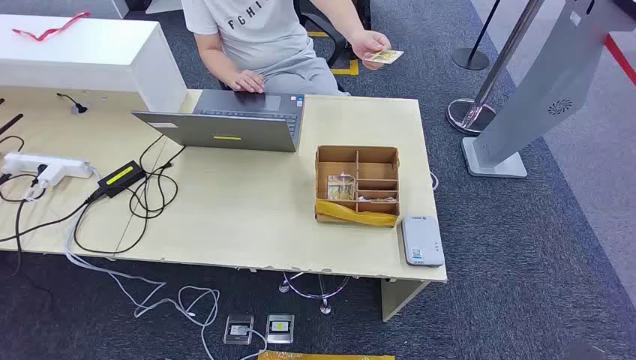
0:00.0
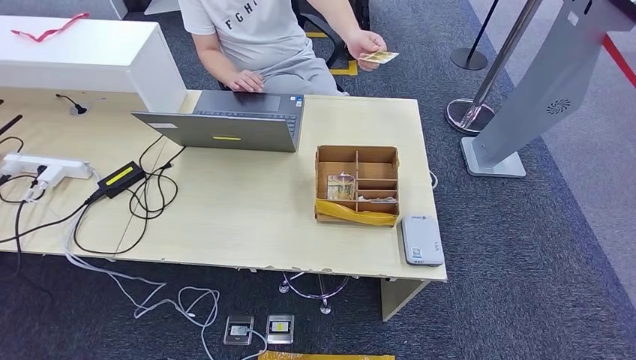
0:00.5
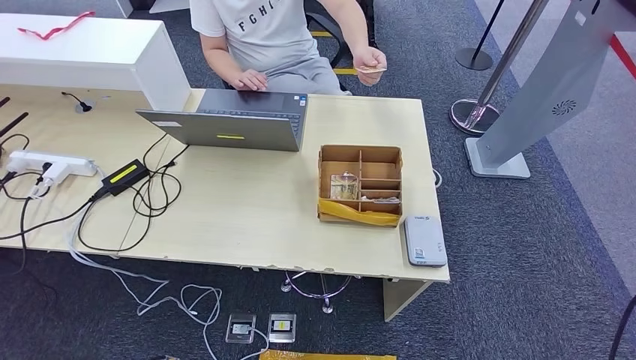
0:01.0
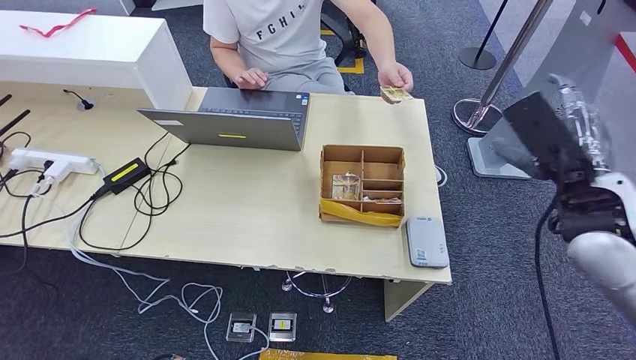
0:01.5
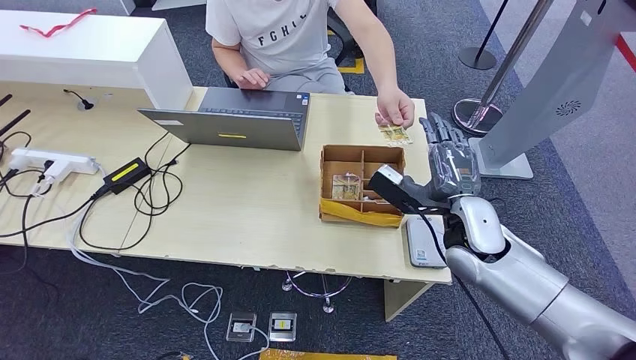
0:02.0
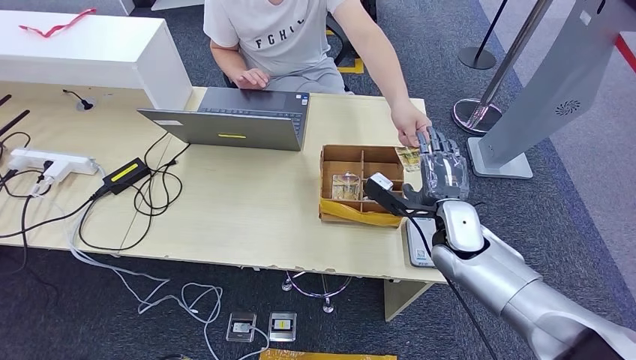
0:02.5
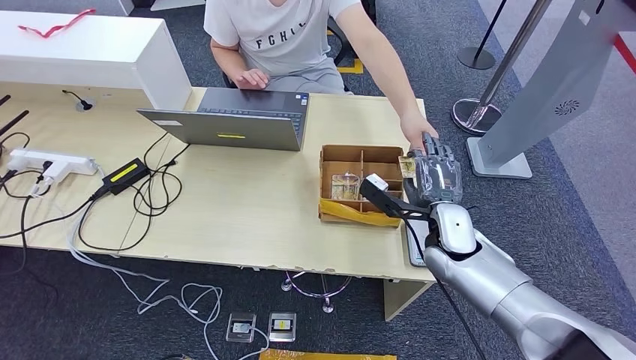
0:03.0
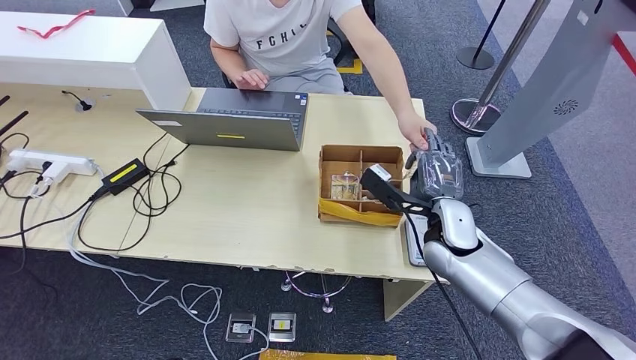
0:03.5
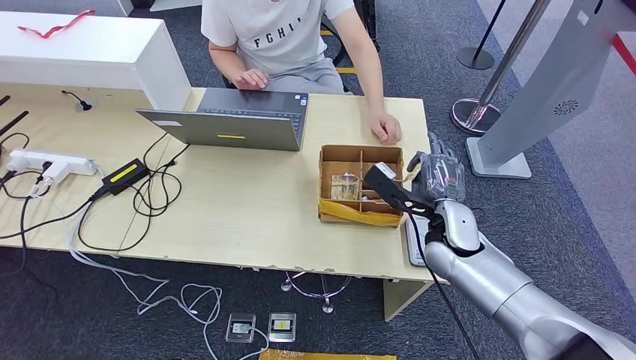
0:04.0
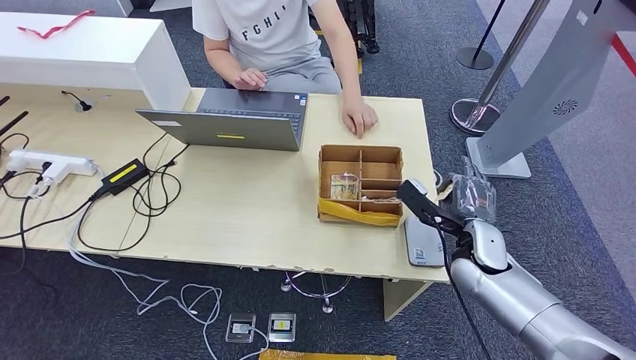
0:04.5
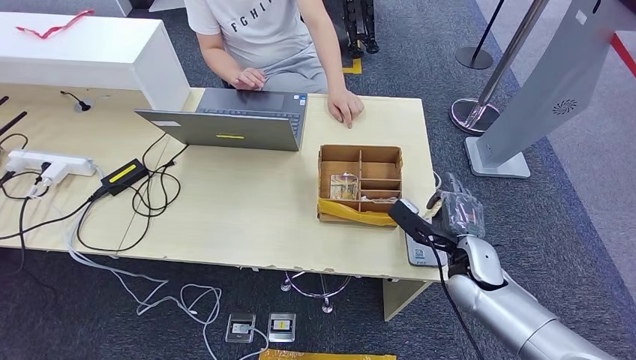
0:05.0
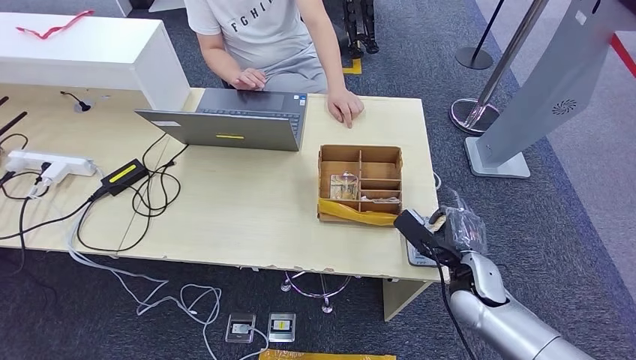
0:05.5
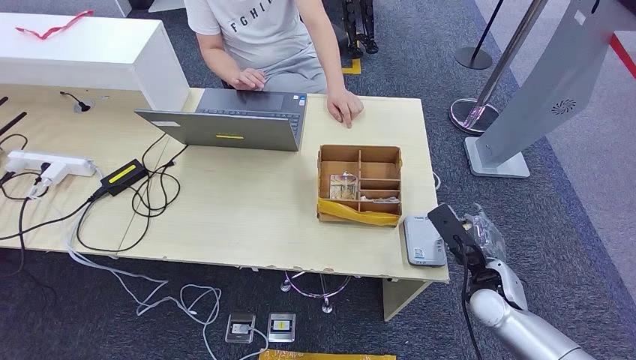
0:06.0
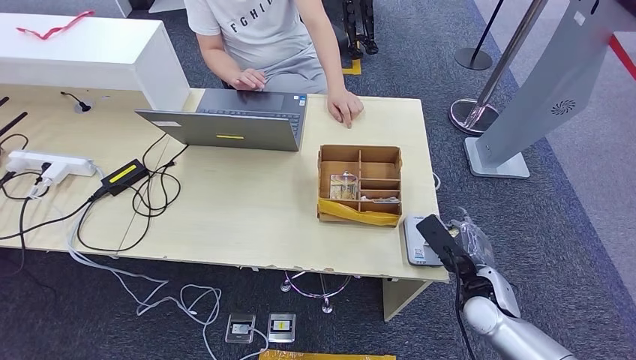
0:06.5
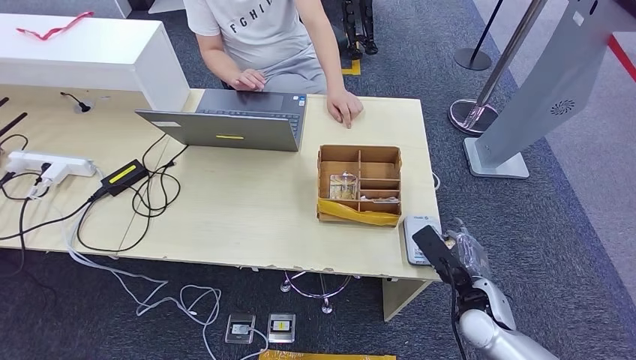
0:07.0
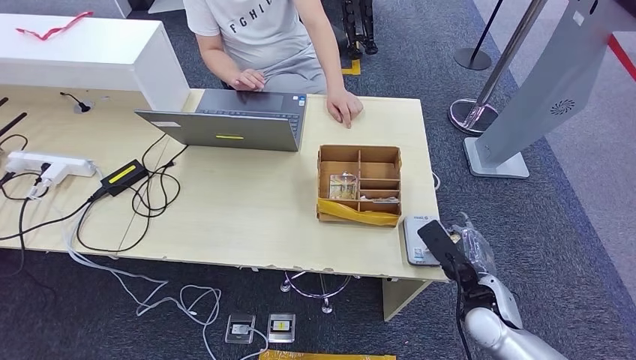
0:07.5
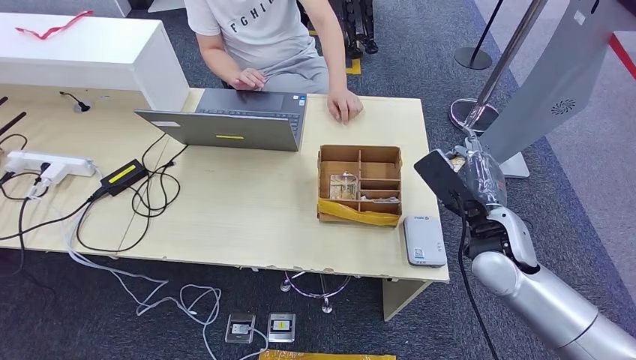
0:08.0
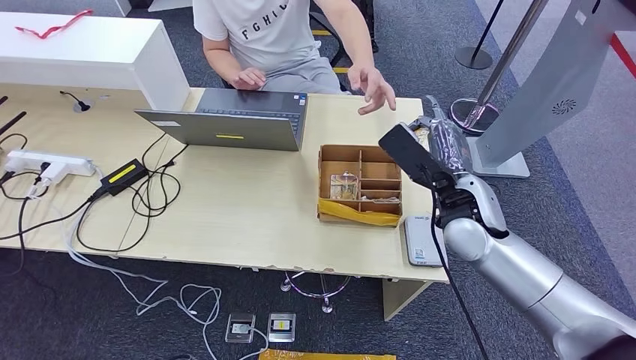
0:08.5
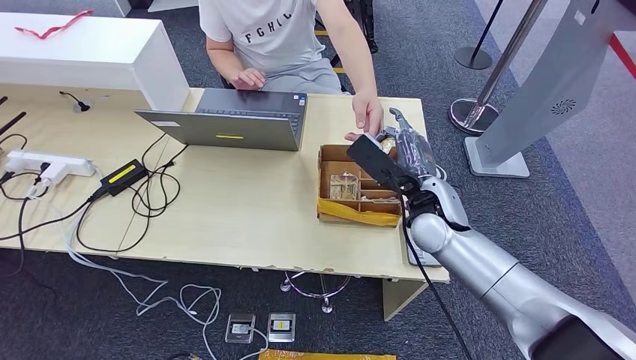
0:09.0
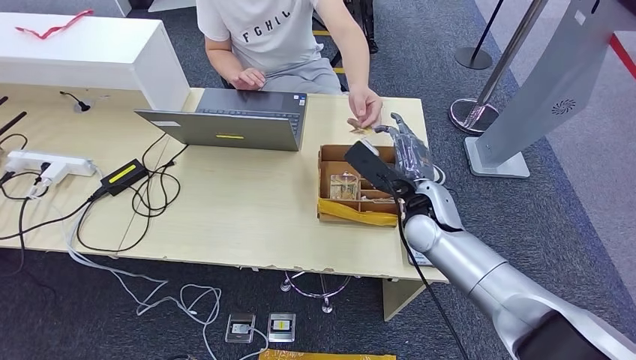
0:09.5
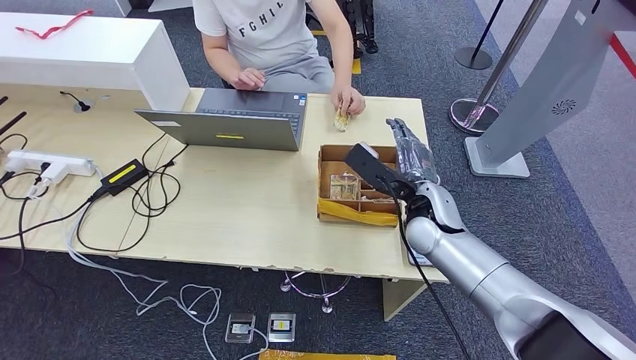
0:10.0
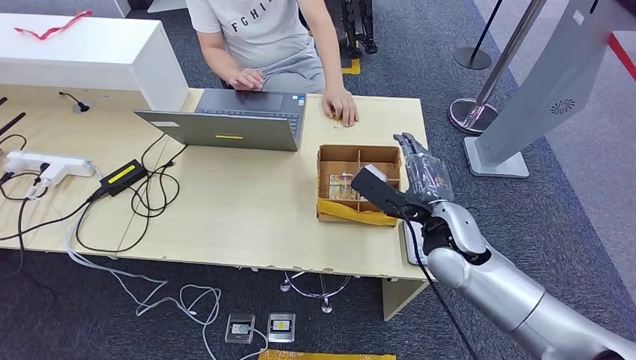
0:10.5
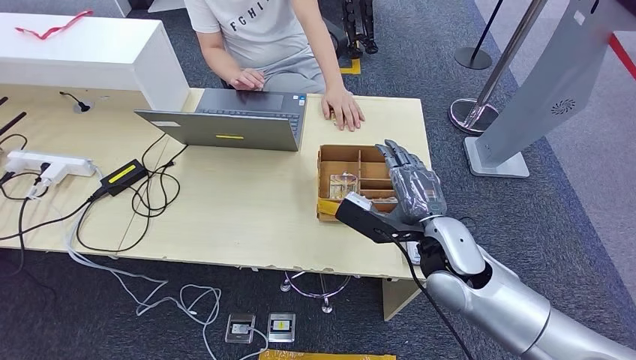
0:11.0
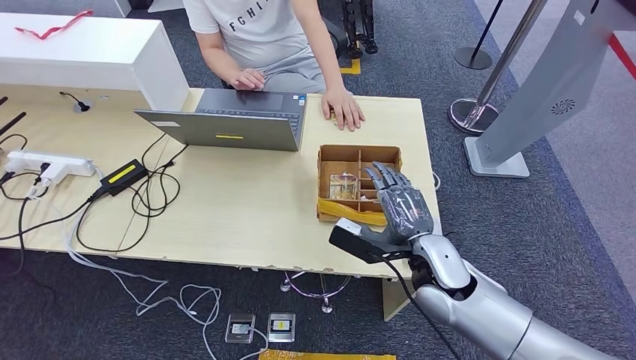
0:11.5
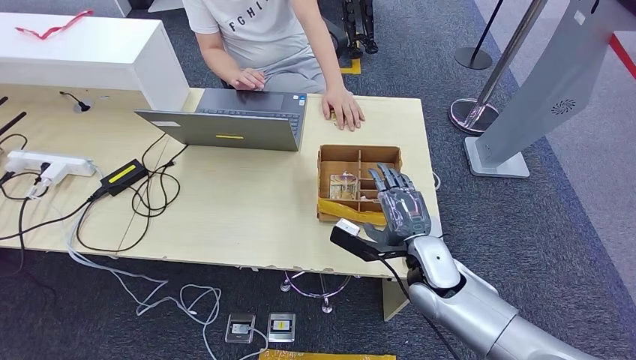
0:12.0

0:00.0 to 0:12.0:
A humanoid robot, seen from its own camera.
Step, 0:00.0 to 0:04.5: Take the ID card from the person's hand.
Step, 0:05.0 to 0:07.0: Place the ID card on the card reader.
Step, 0:08.0 to 0:09.5: Hand the ID card to the person.
0:02.0 to 0:04.0: The right hand shifts by approximately 5 cm.
0:04.0 to 0:06.0: The right hand is displaced to the right, downward and backward by some 15 cm.
0:06.0 to 0:08.0: The right hand shifts some 10 cm upward.
0:08.0 to 0:10.0: The right hand heads to the left and forward, covering about 10 cm.
0:10.0 to 0:12.0: The right hand shifts roughly 10 cm backward and downward.

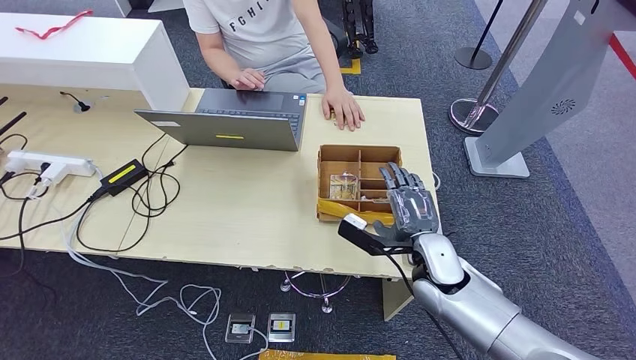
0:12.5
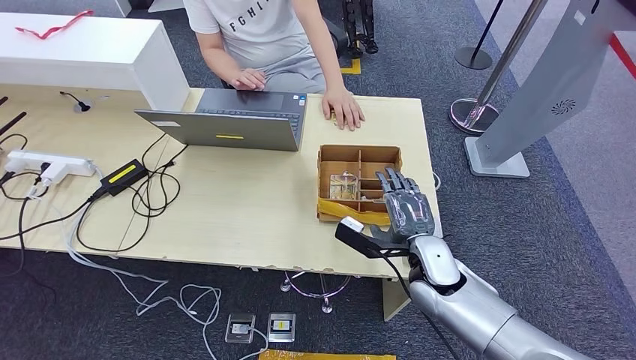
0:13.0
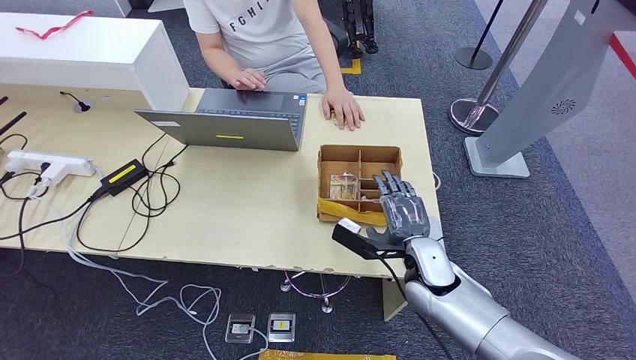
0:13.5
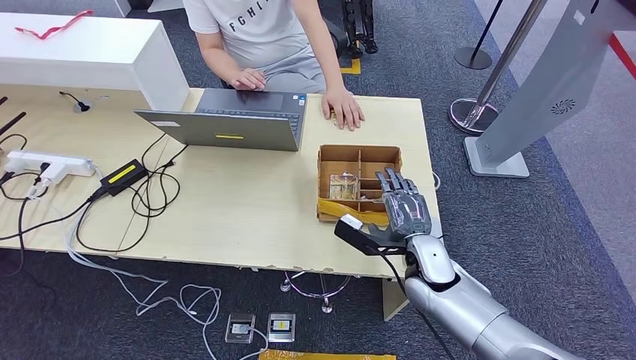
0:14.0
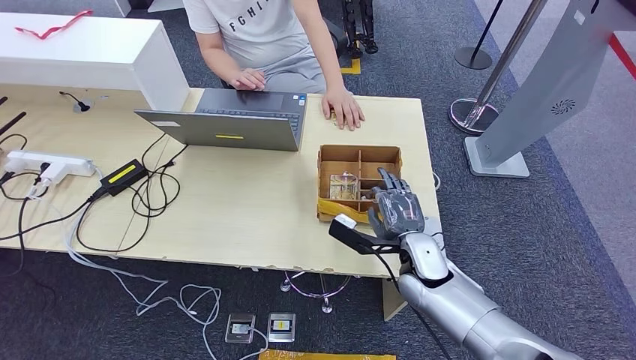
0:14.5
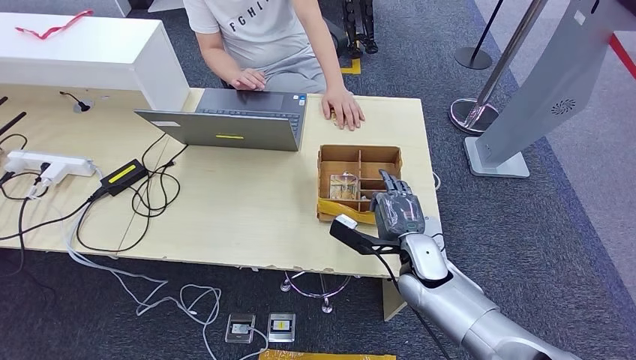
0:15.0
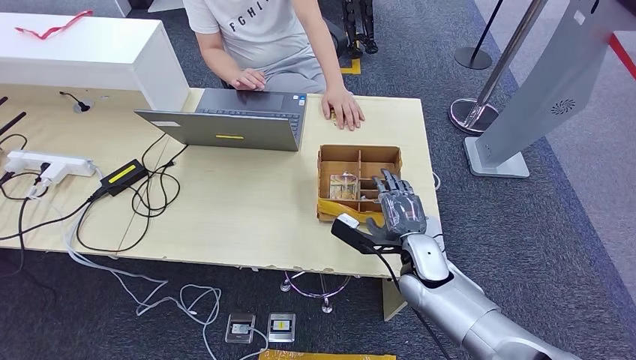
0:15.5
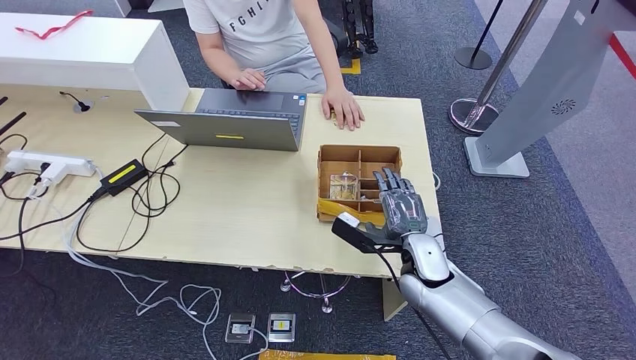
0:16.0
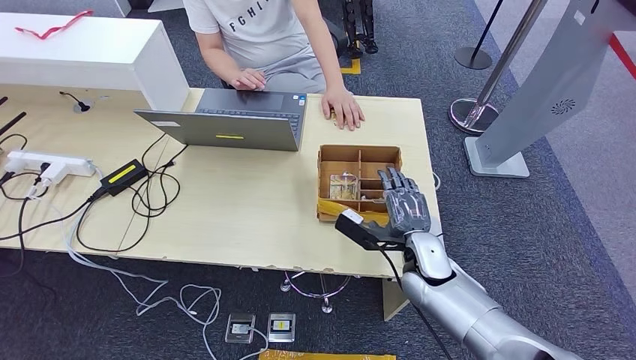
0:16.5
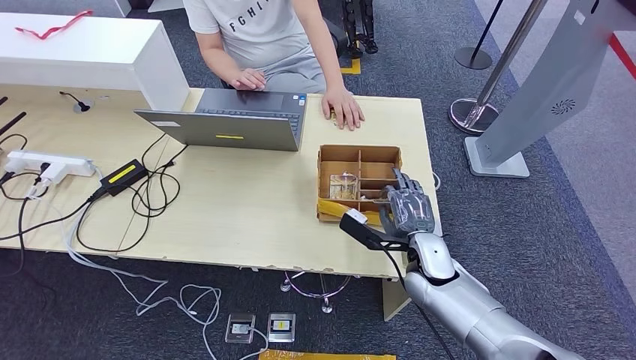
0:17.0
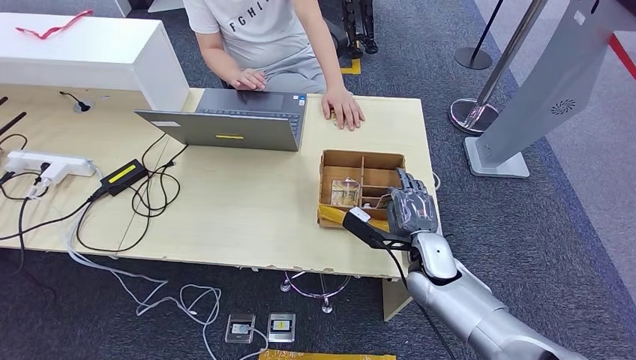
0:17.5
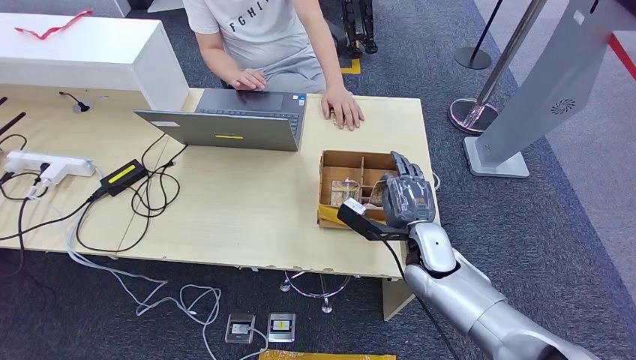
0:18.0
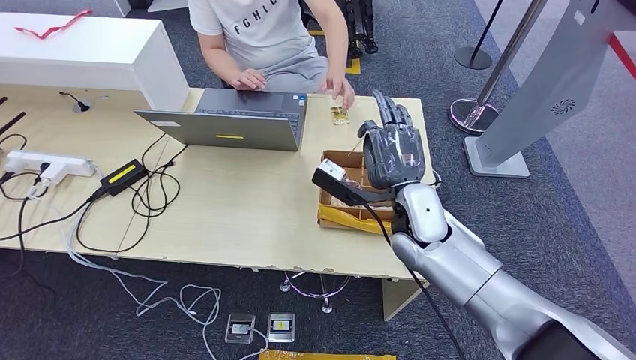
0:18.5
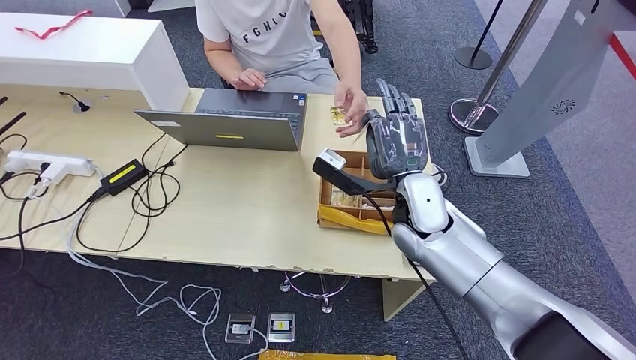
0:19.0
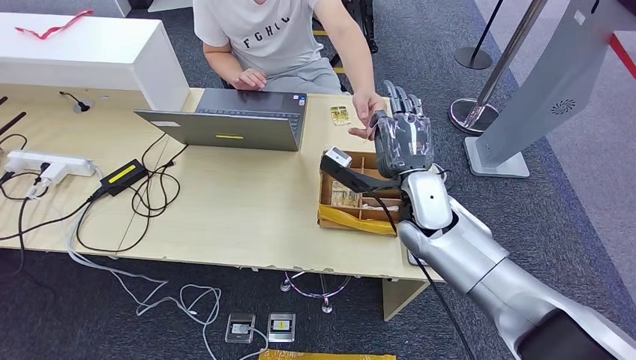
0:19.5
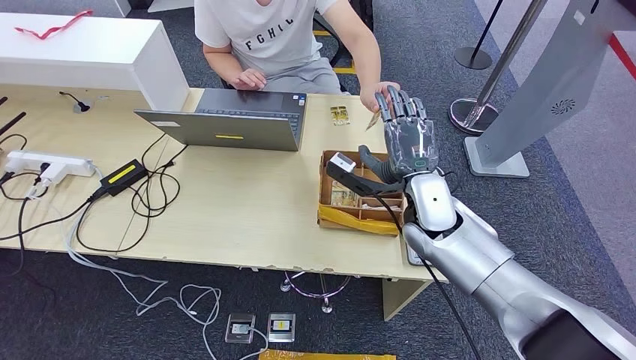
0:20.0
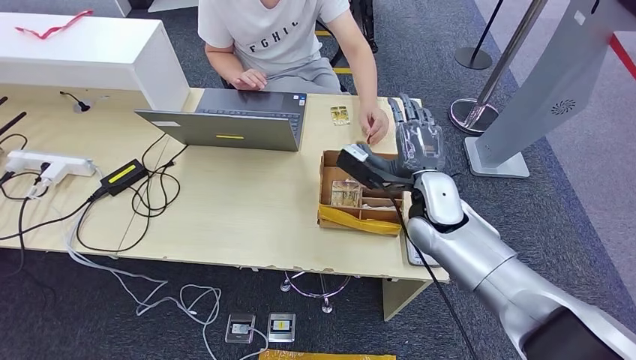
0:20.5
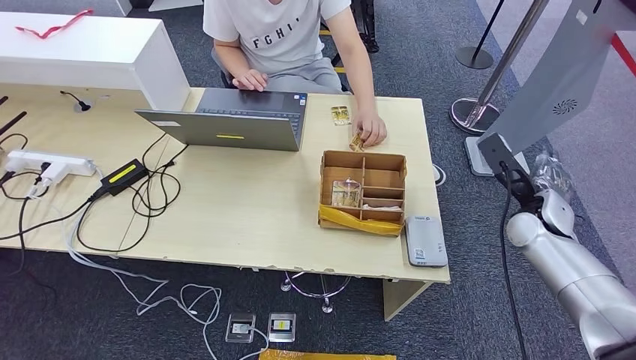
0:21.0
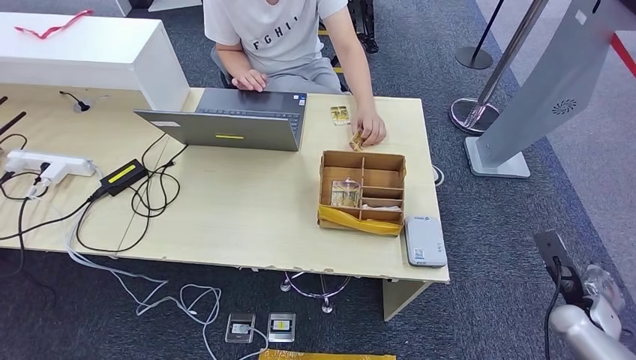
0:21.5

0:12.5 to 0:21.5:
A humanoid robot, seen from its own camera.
Step, 0:12.5 to 0:19.5: Pick up the room key from the key card box.
Step, 0:20.0 to 0:21.5: Hand the room key to the person.
0:12.5 to 0:17.0: The hands make only small movements.
0:17.0 to 0:19.5: The right hand moves upward, roughly 15 cm.
0:19.5 to 0:21.5: The right hand shifts some 35 cm to the right and downward.
